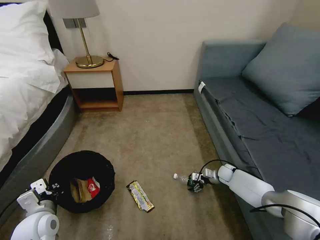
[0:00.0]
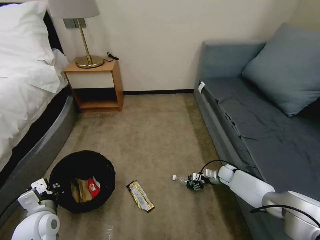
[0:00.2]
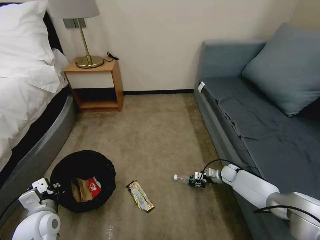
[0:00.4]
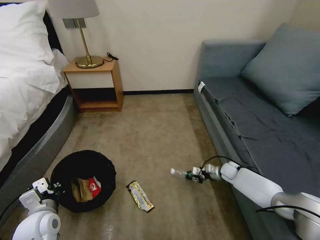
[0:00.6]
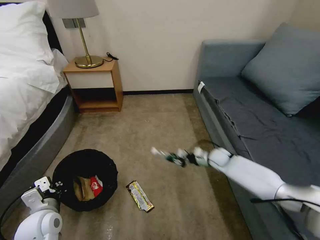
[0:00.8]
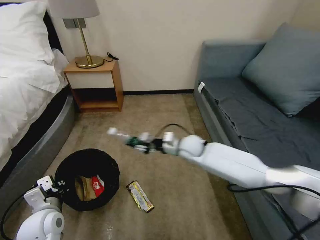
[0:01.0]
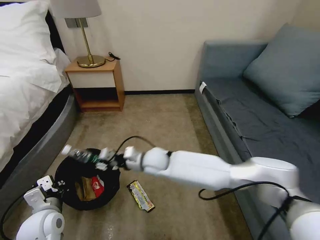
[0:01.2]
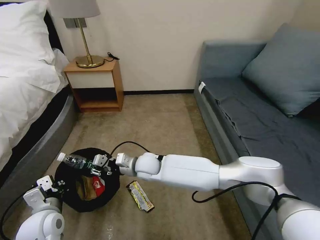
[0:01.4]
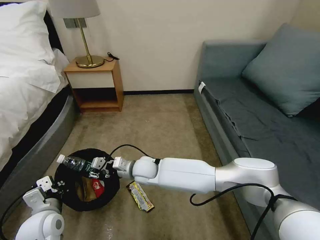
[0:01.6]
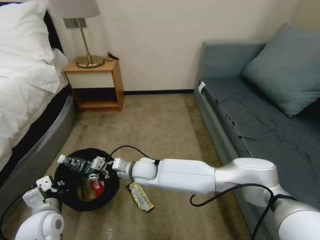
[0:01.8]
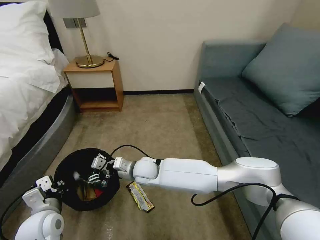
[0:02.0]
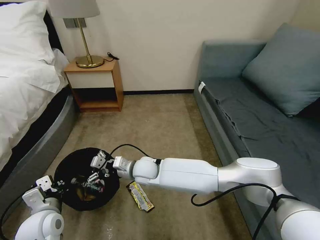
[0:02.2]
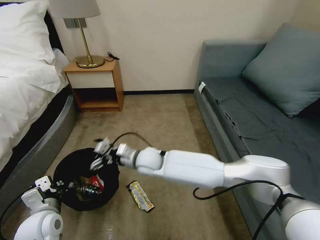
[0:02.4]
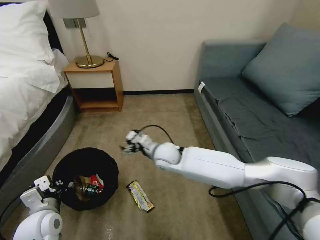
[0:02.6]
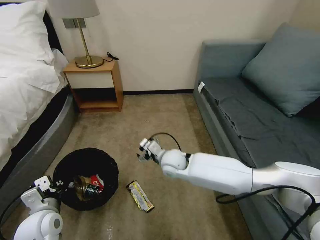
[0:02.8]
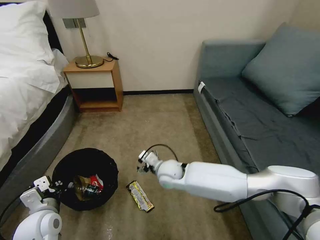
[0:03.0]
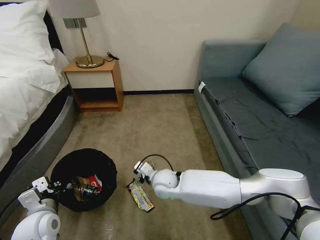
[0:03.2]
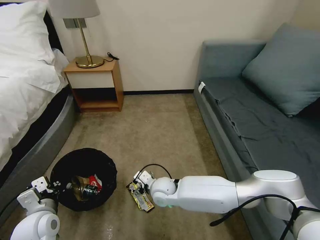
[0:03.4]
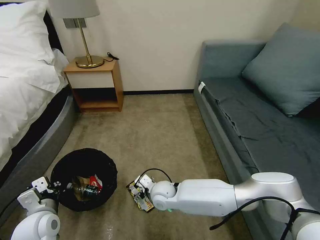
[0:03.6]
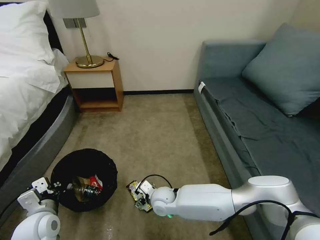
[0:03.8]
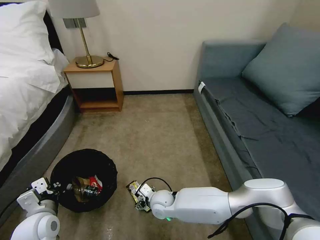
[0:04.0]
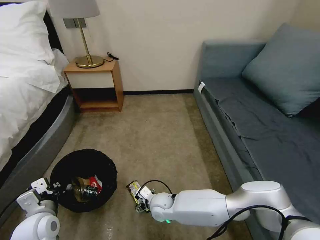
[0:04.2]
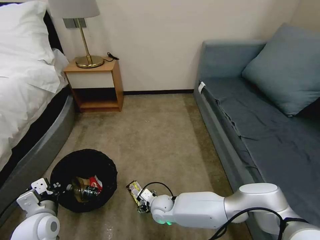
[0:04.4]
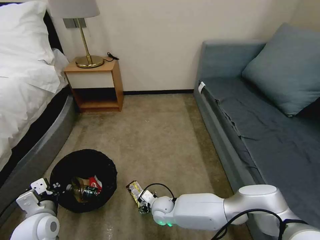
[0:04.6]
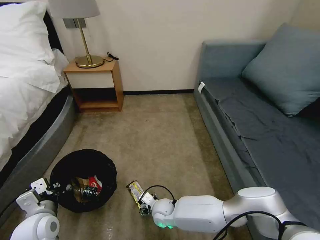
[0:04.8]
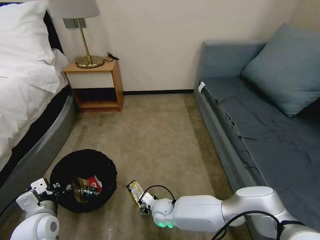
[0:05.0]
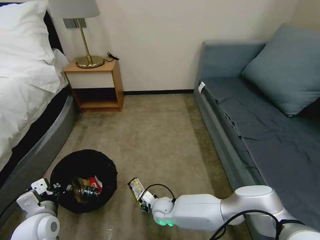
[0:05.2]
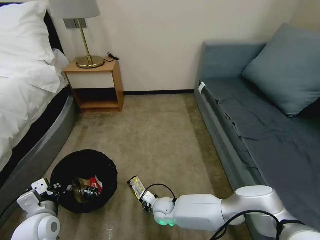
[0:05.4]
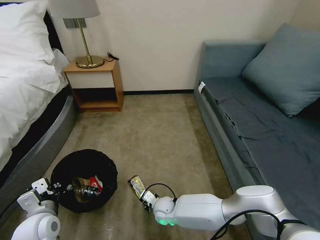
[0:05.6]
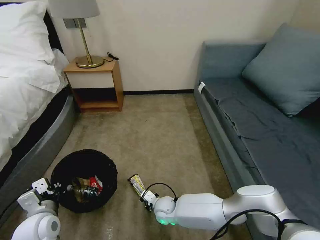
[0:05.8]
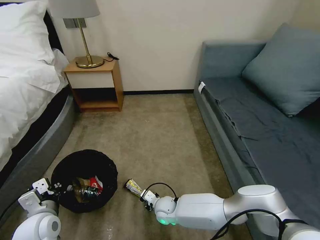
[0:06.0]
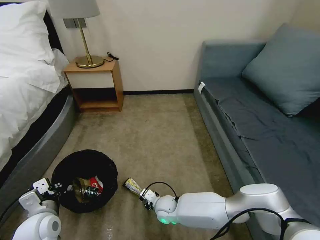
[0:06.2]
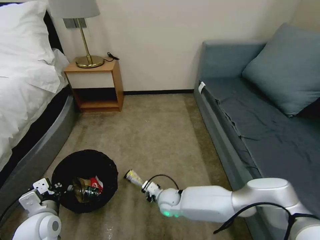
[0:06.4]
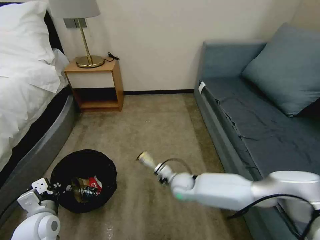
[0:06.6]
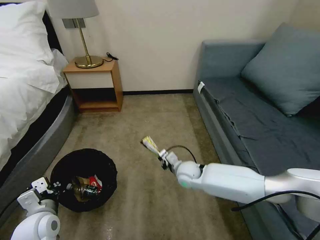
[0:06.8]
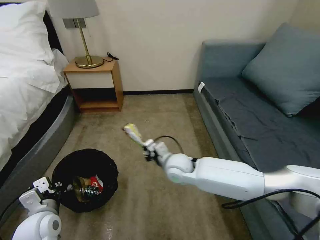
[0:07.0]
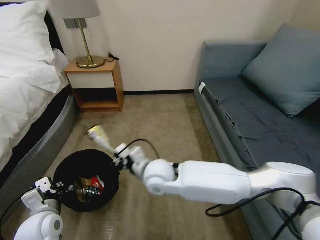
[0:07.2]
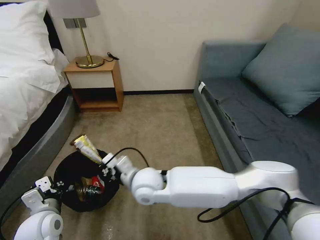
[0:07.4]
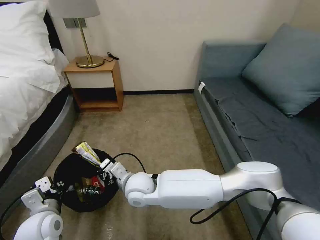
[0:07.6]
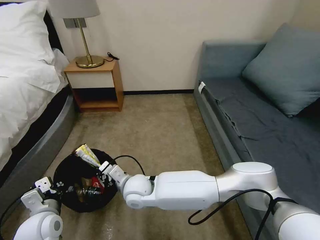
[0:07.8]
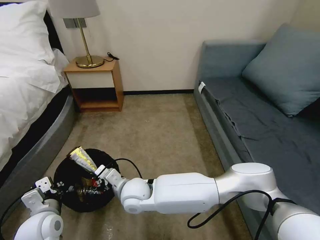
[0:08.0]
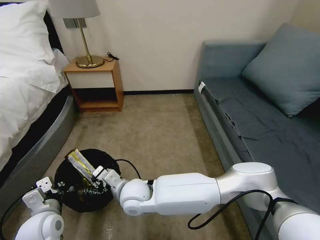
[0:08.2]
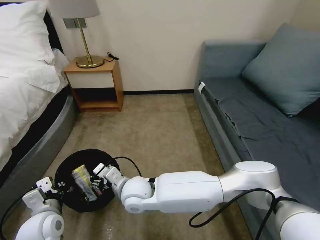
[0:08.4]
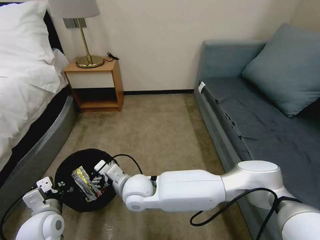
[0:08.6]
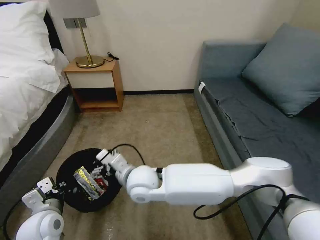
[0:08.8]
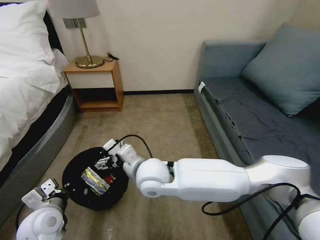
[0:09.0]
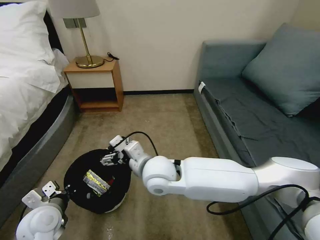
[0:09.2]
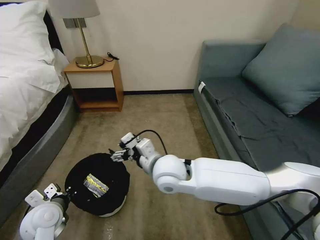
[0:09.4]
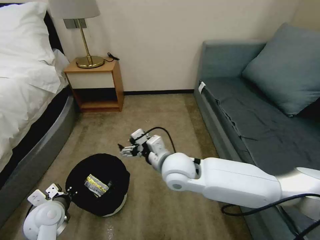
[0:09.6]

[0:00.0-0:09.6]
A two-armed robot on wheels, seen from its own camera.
Task of the whole recording: Pick up the trash bin, then pick up the garbage on the floor and place it into the trash bin.
0:00.0 to 0:01.6: The right gripper is displaced to the left and upward by approximately 40 cm, and closes its fingers.
0:01.6 to 0:03.2: The right gripper goes about 10 cm to the right, and opens its fingers.
0:03.2 to 0:04.8: The right gripper heads downward and backward, covering approximately 15 cm.
0:04.8 to 0:06.4: The right gripper closes up.
0:06.4 to 0:08.0: The right gripper is displaced upward and to the left by about 20 cm.
0:08.0 to 0:09.6: The right gripper moves to the right and upward, some 15 cm, and opens up.

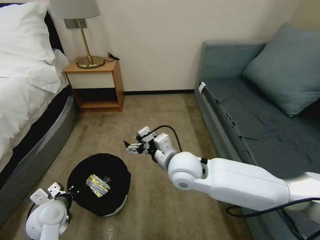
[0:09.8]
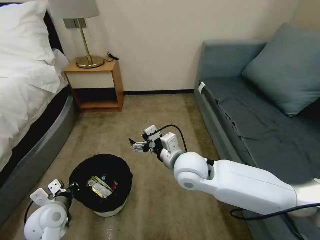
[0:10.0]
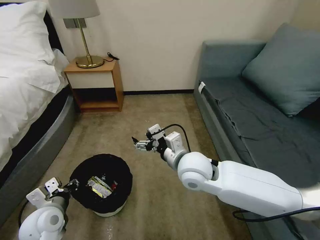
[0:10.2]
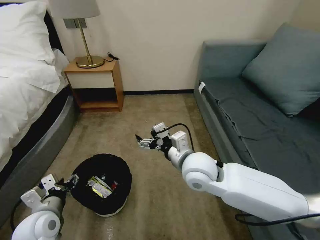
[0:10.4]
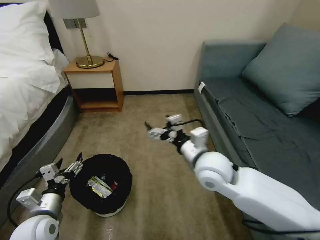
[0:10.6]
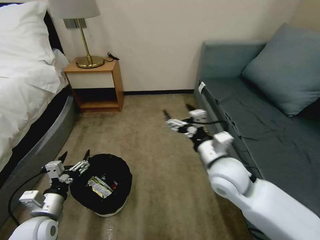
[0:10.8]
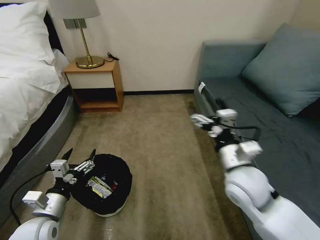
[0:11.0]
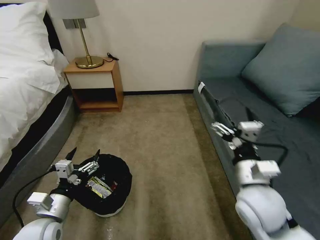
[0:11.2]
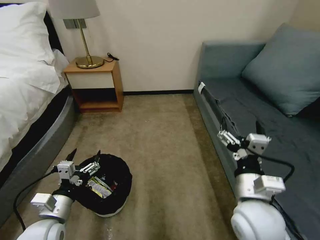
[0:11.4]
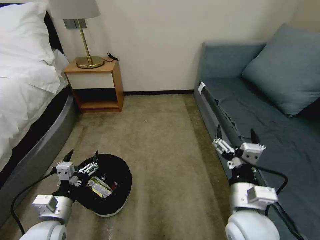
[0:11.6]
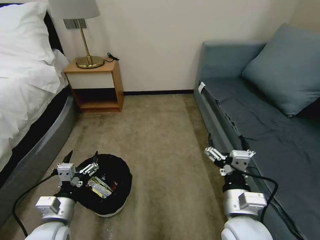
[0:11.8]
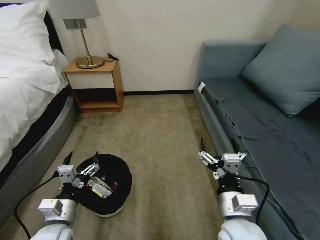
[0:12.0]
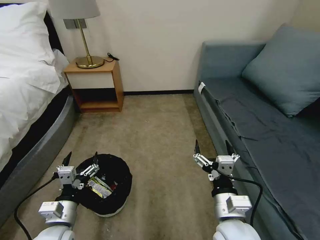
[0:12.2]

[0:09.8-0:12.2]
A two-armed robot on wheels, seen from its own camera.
Task of the whole recording: Pick up the trash bin, then pick up the garbage on the floor and place it into the trash bin.
0:09.8 to 0:11.0: The left gripper shifts by approximately 5 cm, and opens. Meanwhile the right gripper is displaced to the right by about 15 cm.
0:11.0 to 0:12.2: The right gripper is displaced backward and downward by approximately 15 cm. Meanwhile the left gripper moves roughly 5 cm.

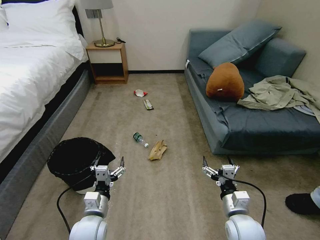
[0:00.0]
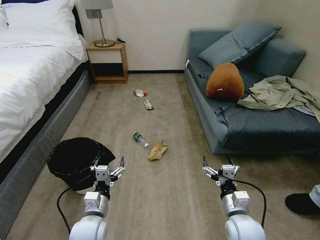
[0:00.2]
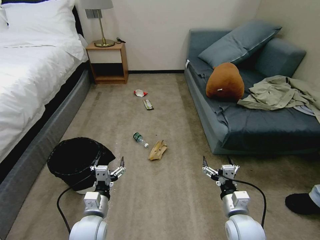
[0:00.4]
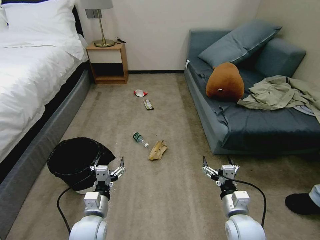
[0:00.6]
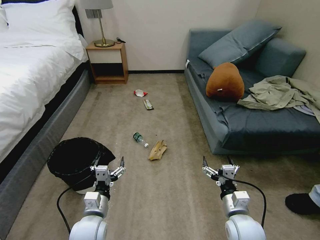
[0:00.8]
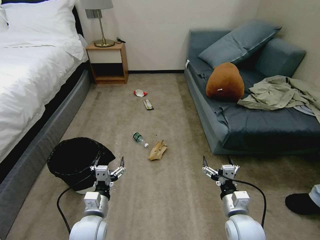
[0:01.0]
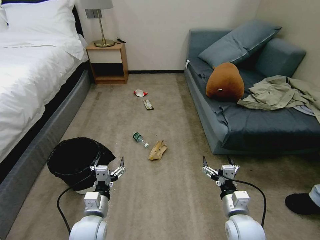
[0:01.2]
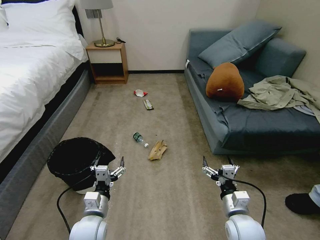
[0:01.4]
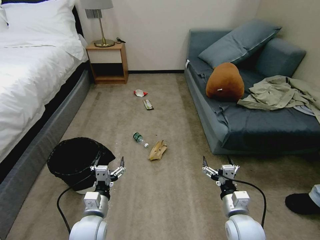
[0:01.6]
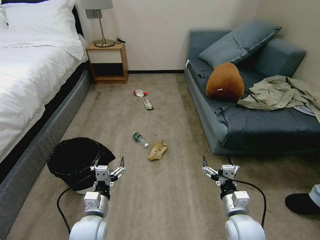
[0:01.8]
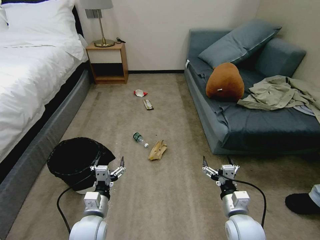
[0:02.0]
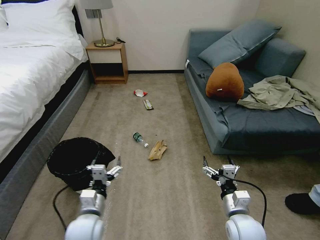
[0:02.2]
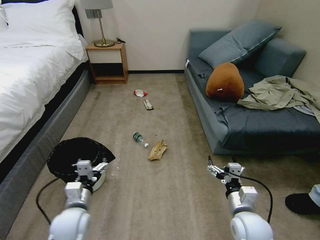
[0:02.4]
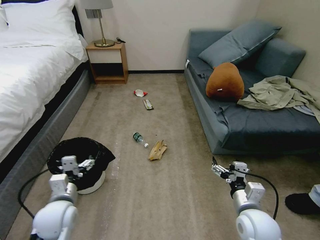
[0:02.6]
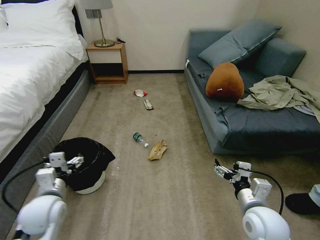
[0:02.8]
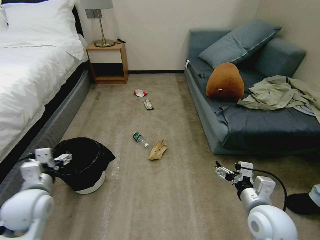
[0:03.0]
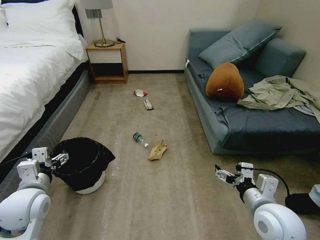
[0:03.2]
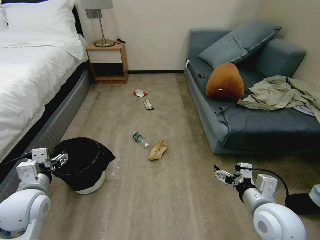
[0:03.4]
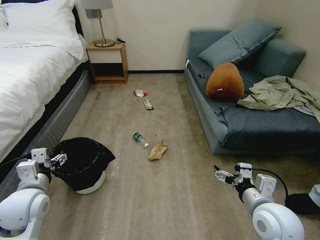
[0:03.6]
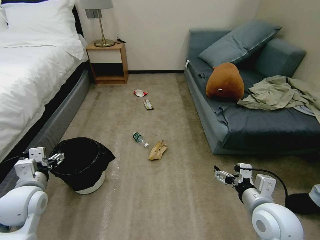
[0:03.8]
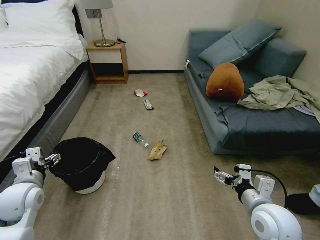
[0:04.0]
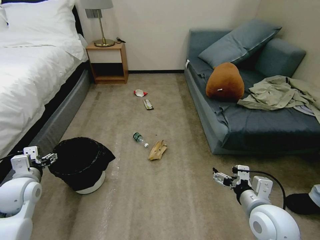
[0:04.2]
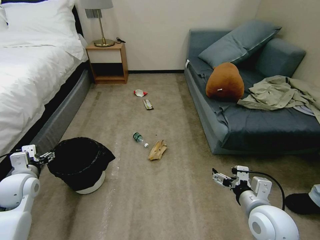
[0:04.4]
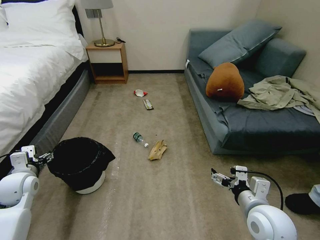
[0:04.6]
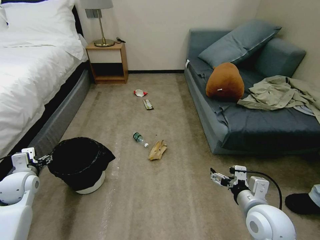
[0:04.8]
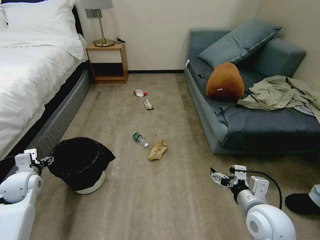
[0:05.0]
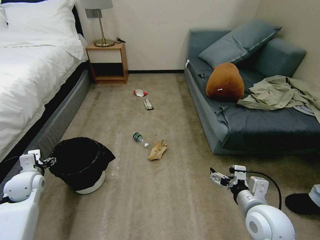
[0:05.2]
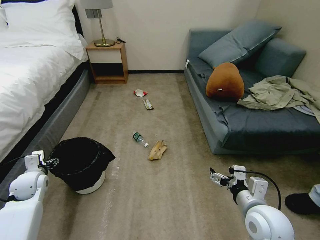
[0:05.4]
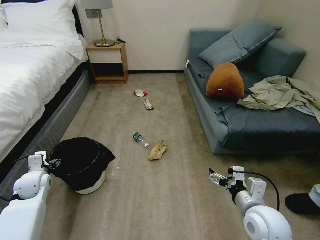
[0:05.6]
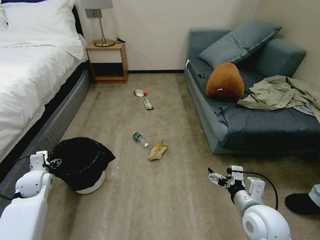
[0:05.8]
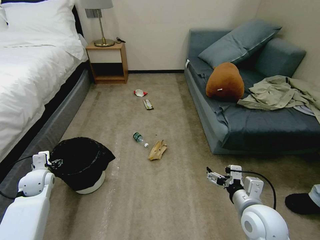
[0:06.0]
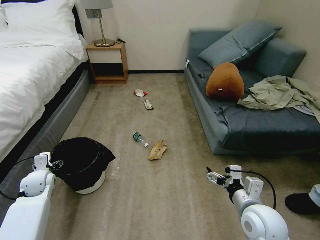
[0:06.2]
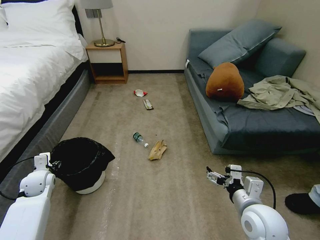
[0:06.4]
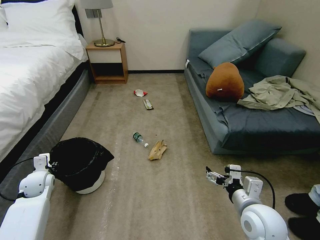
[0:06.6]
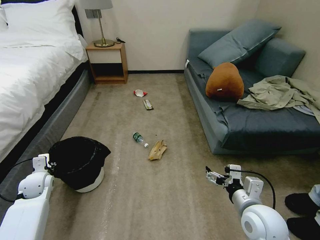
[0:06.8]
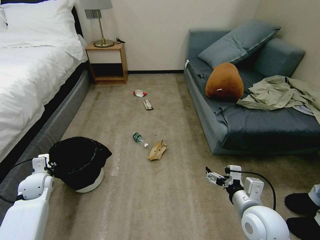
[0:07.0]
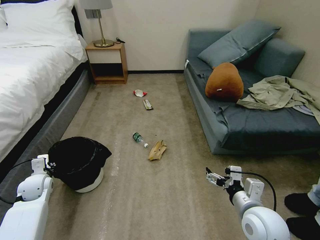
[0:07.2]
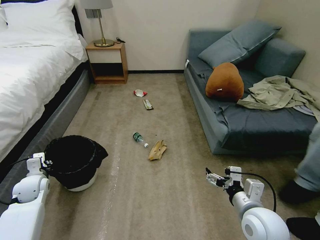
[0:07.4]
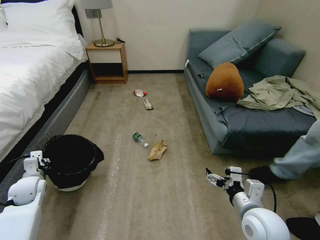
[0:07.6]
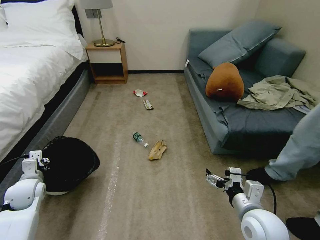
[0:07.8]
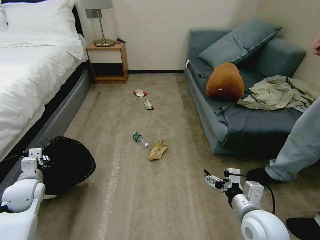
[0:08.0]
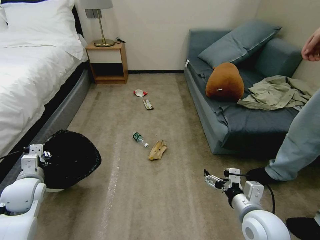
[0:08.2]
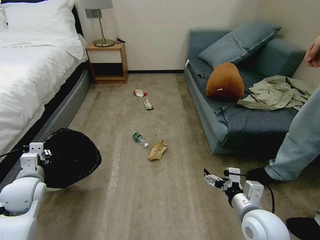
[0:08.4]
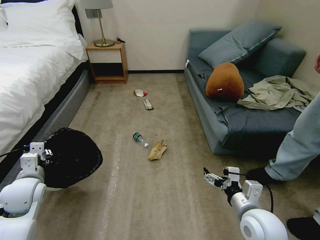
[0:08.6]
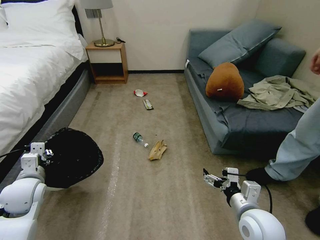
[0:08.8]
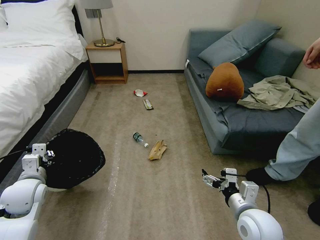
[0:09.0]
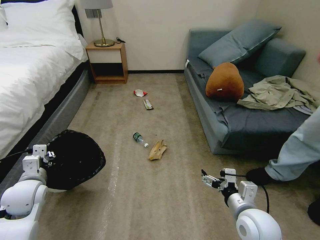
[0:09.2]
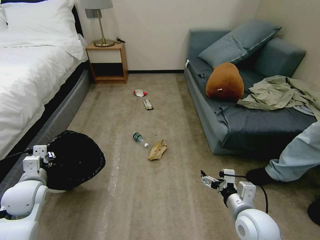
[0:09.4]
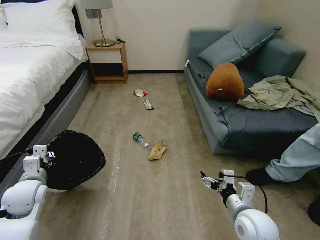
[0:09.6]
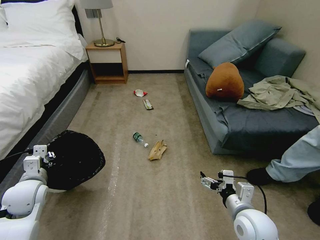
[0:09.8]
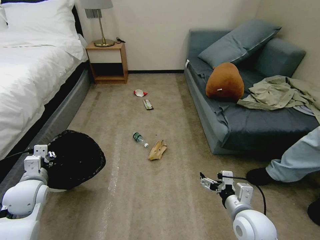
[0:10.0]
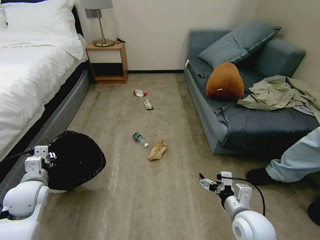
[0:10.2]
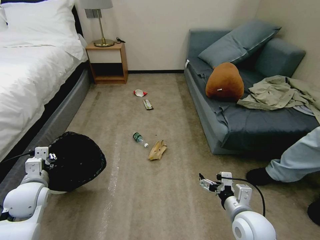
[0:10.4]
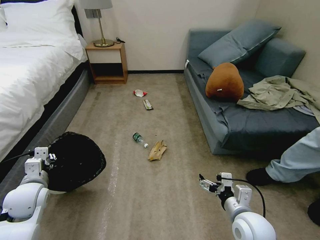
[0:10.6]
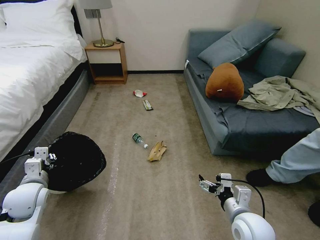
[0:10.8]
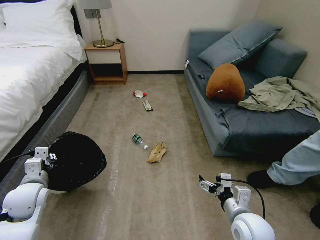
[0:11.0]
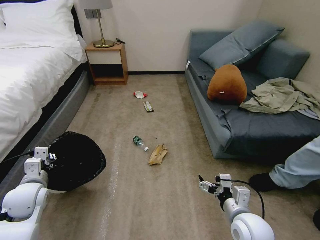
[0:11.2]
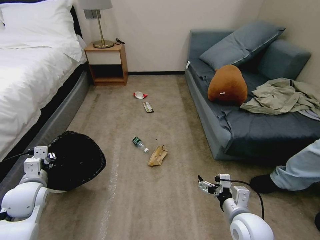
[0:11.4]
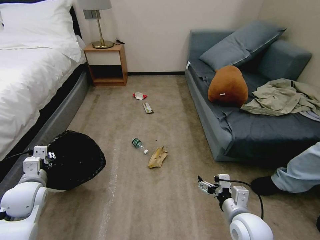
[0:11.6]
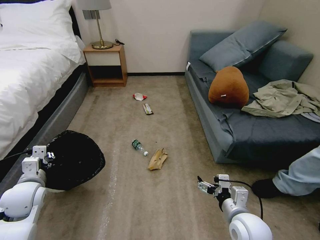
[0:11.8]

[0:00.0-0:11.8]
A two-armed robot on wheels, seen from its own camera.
Task of the whole recording: Pick up the trash bin, then pick up the garbage on the floor and place it into the trash bin.
0:01.4 to 0:03.0: The right gripper travels upward by approximately 10 cm. The left gripper goes some 20 cm to the left and upward.
0:03.0 to 0:04.4: The left gripper travels to the left and forward by about 10 cm.
0:04.4 to 0:06.0: The left gripper goes some 10 cm downward and forward.
0:06.0 to 0:07.4: The left gripper closes up.
0:07.4 to 0:08.8: The left gripper moves upward, to the right and backward, approximately 15 cm.
0:08.8 to 0:10.4: The grippers stay close to where they were, moving slightly.
0:10.4 to 0:11.8: The two grippers keep their place.
